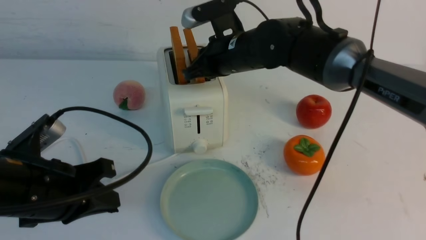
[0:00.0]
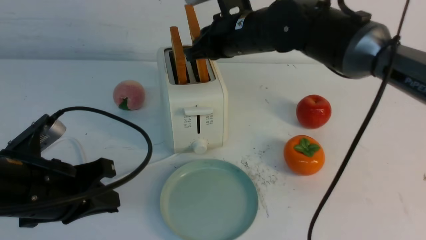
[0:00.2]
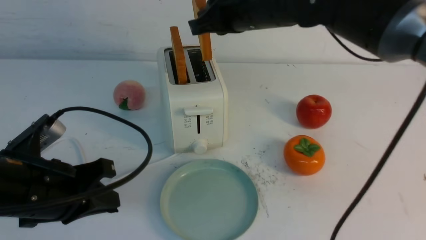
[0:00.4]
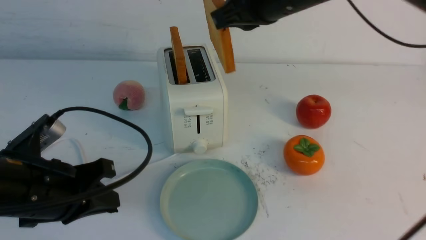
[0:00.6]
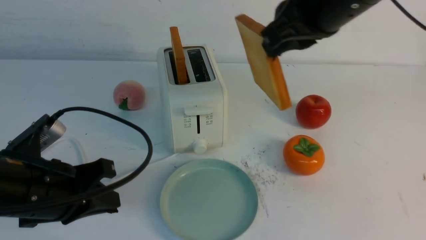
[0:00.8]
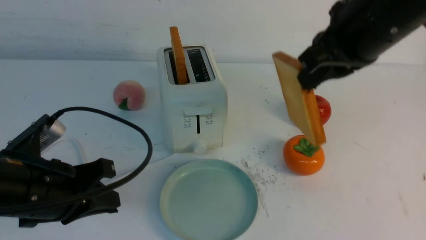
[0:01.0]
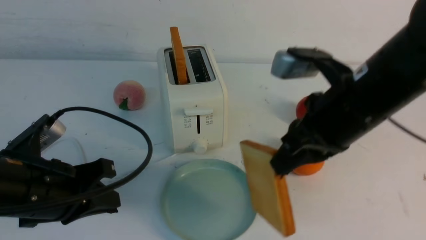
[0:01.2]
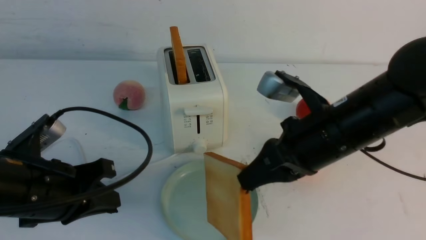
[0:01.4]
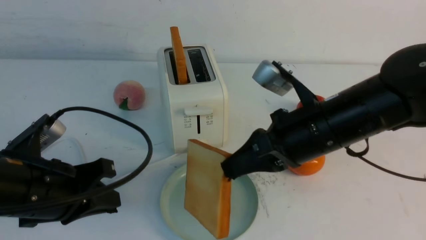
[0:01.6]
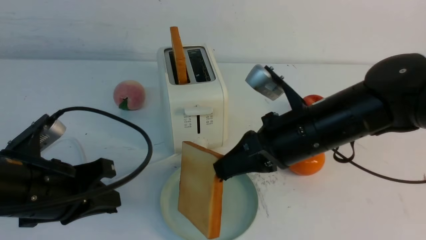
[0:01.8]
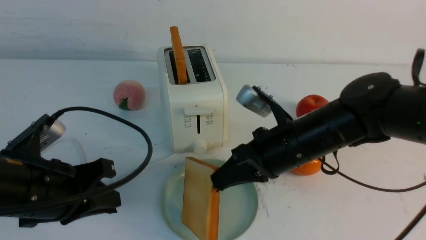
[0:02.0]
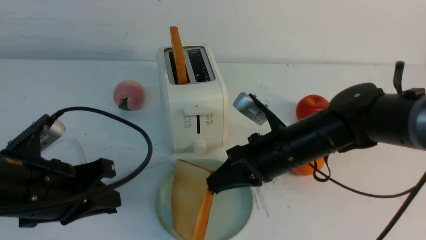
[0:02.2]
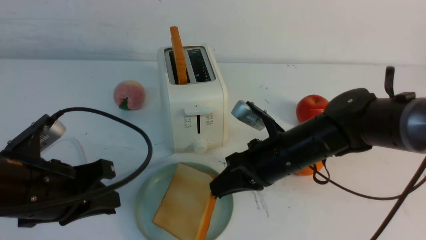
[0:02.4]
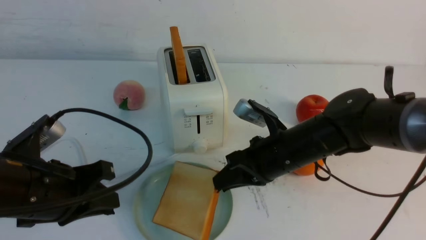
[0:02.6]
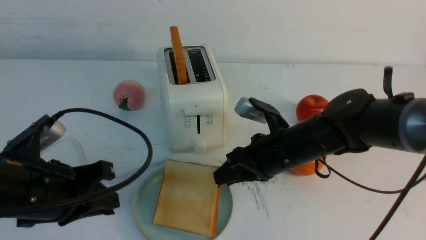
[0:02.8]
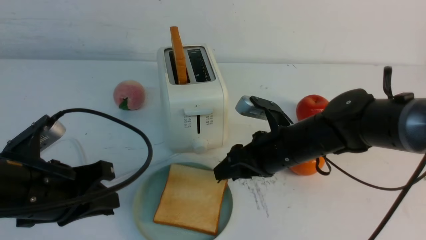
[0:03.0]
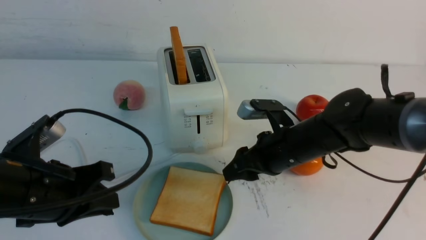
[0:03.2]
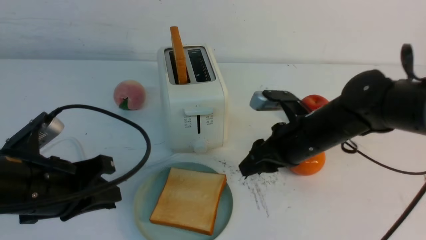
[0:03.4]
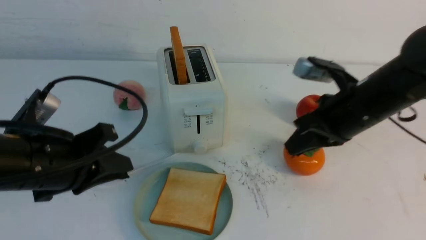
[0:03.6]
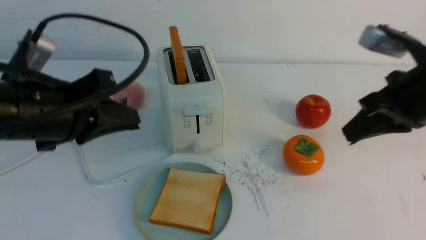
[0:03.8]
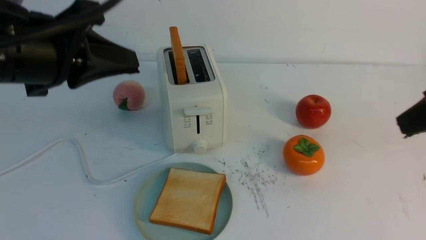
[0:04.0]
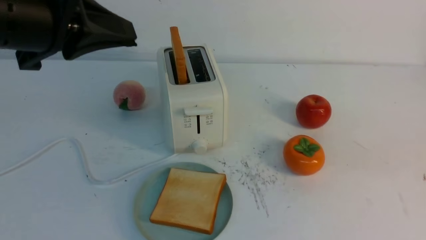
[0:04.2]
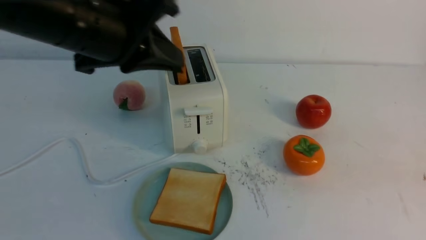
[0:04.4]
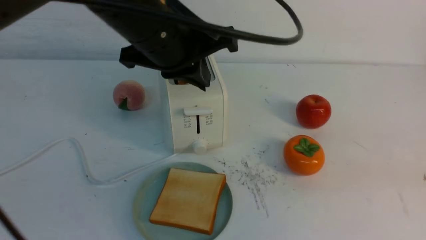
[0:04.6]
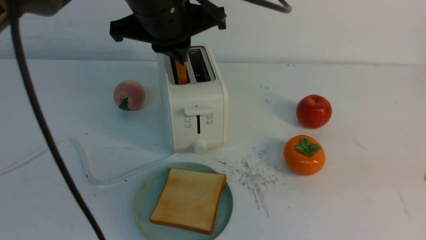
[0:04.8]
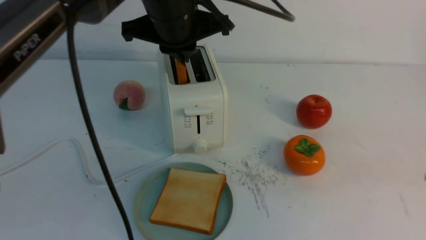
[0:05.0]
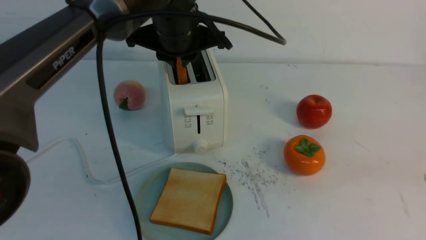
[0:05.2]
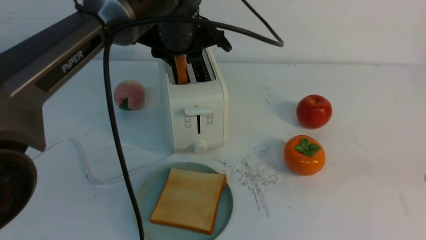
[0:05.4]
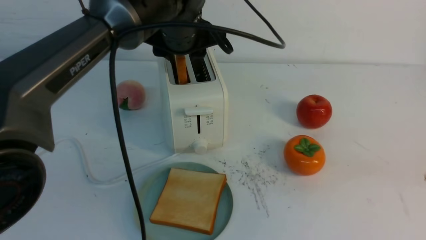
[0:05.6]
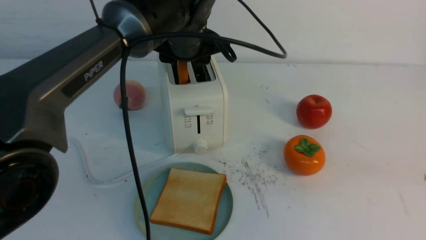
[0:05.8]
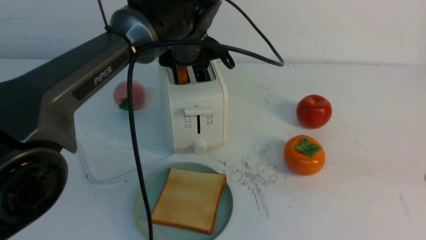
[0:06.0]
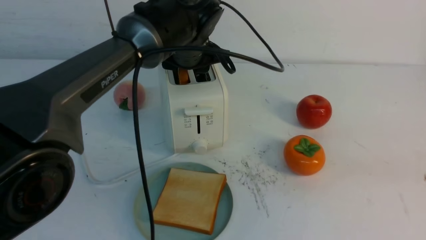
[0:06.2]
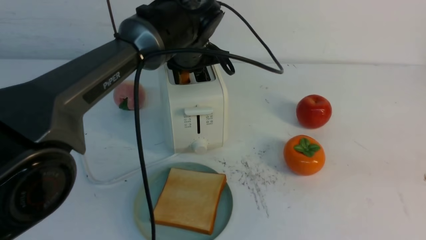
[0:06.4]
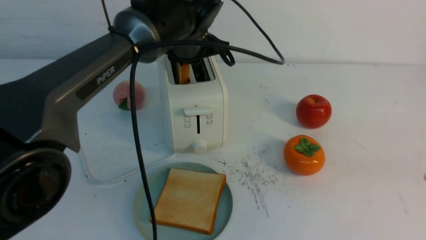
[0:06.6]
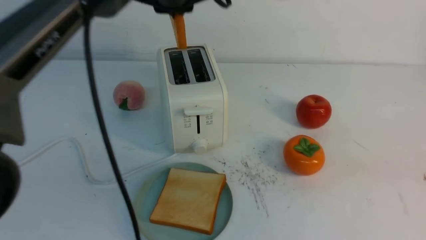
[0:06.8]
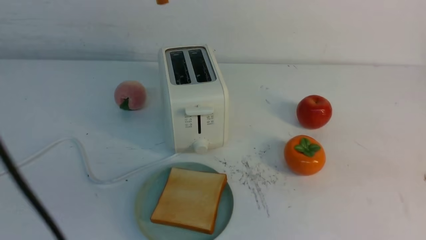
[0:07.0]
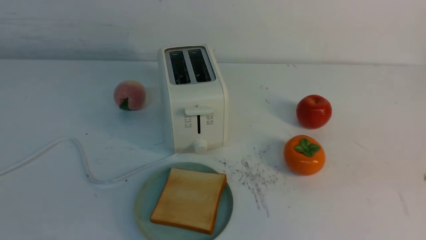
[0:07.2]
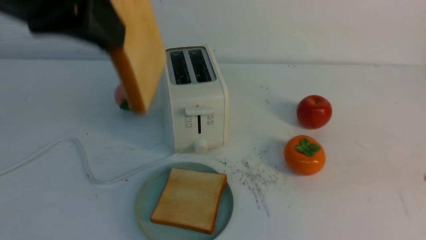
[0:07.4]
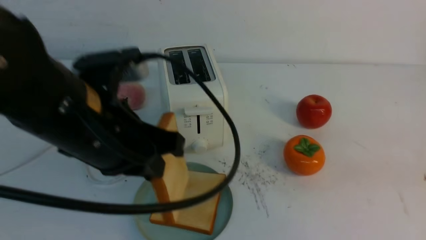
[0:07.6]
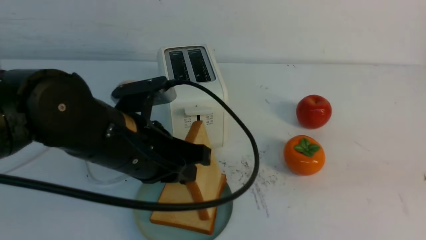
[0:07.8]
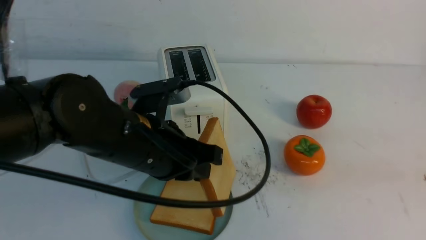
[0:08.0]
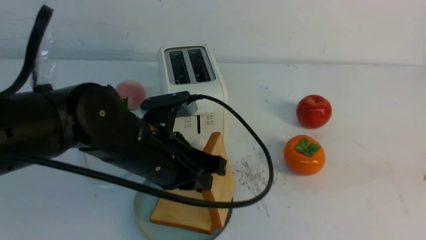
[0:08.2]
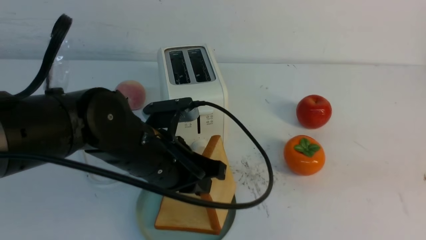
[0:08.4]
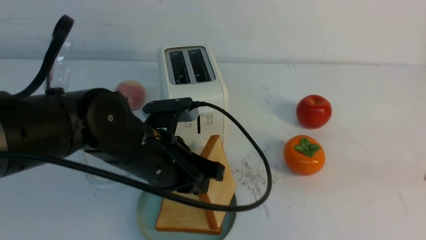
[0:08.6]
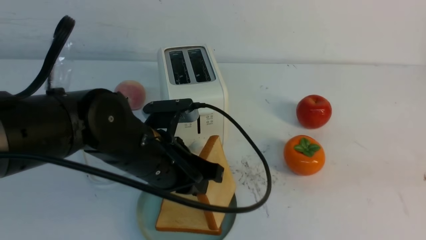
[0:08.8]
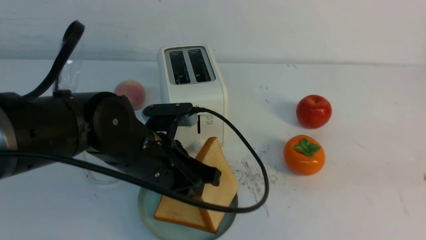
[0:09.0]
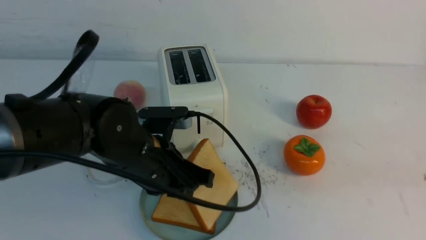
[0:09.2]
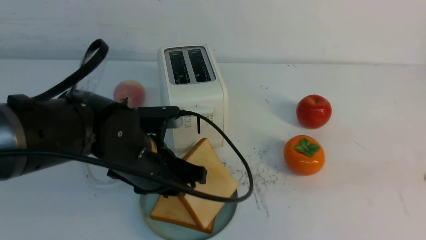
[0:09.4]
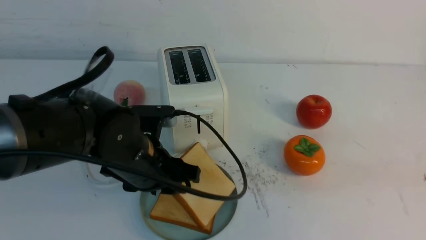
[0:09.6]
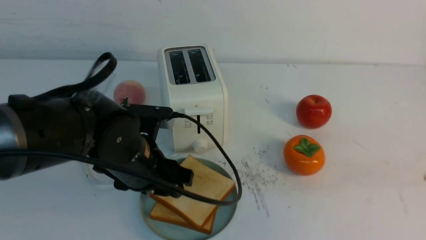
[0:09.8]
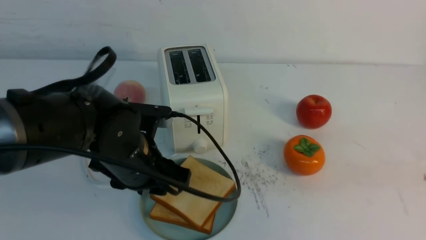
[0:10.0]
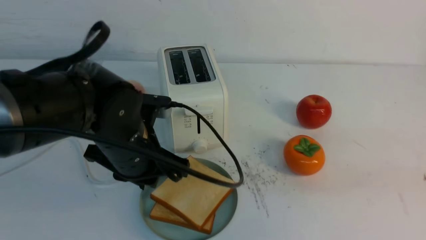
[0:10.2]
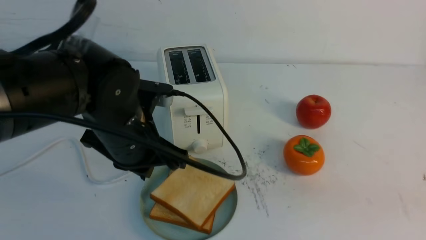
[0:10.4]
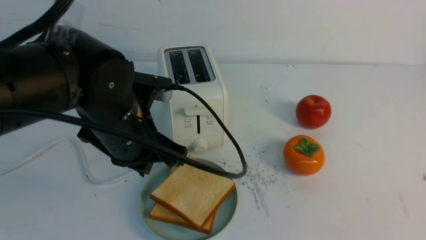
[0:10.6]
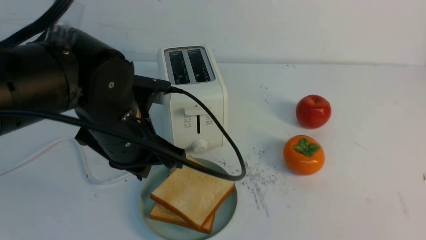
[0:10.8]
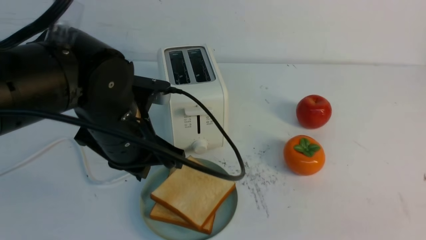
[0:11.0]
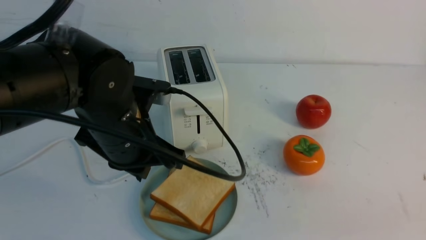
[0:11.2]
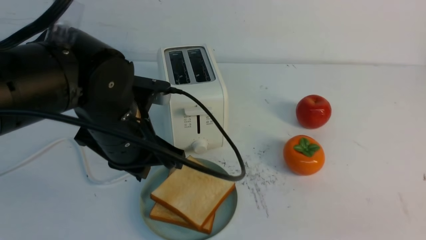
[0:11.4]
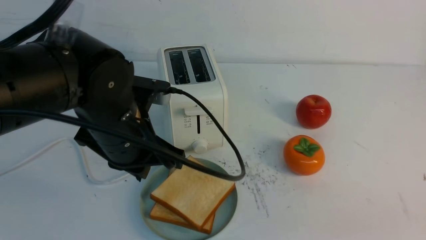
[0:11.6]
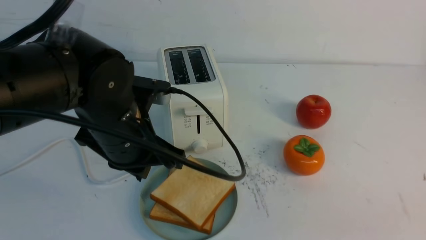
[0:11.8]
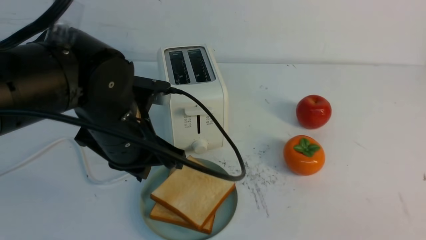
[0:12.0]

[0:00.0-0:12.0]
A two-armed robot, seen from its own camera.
Task of the whole recording: take toasted bread from bread machine on white table place on plate.
Step, 0:00.8 to 0:03.2: use the right arm to put a slice of bread into the plate.
Step, 0:03.4 to 0:06.8: use the left arm to take out a slice of bread.
Step, 0:07.0 to 0:10.4: use the left arm to put a slice of bread into the empty plate.
0:00.0 to 0:01.6: The right gripper goes approximately 15 cm backward and to the right.
0:01.6 to 0:03.0: The right gripper heads downward and forward, covering about 10 cm, and opens.
0:03.0 to 0:04.4: The right gripper heads backward, upward and to the right, covering about 30 cm, and closes up, while the left gripper goes approximately 20 cm upward, to the right and forward.
0:04.4 to 0:06.0: The left gripper shifts about 20 cm forward, downward and to the right, and opens its fingers.
0:06.0 to 0:07.6: The left gripper is displaced backward by approximately 20 cm, and closes up.
0:07.6 to 0:09.0: The left gripper travels downward by about 10 cm.
0:09.0 to 0:10.4: The right gripper is displaced backward by some 10 cm. The left gripper opens, then closes once more.
0:10.4 to 0:12.0: The right gripper goes about 10 cm downward.

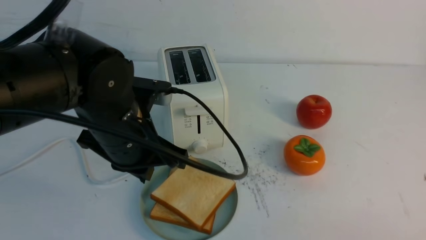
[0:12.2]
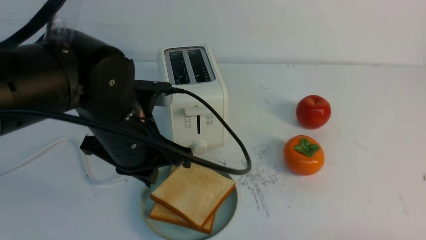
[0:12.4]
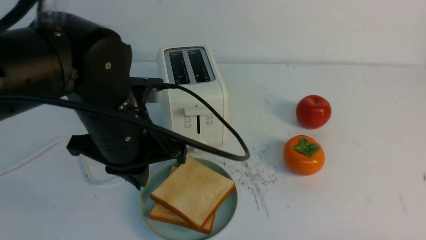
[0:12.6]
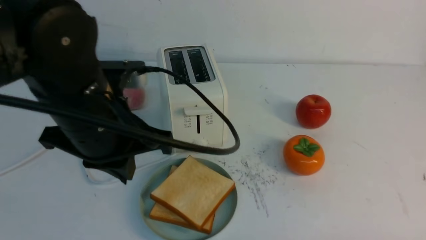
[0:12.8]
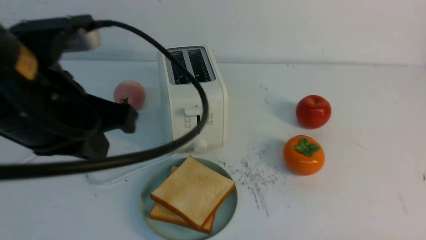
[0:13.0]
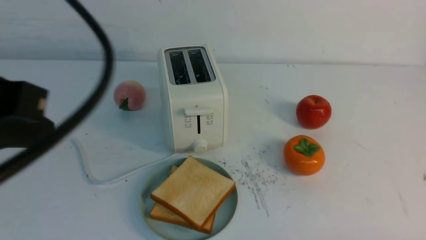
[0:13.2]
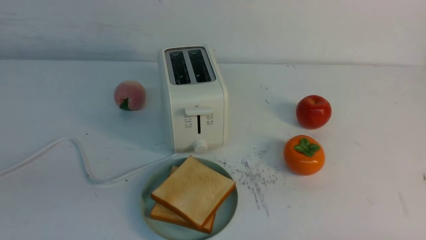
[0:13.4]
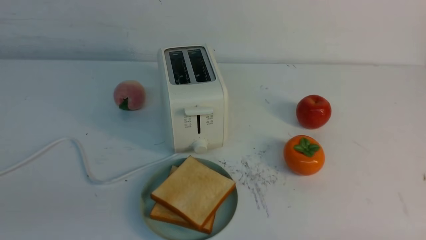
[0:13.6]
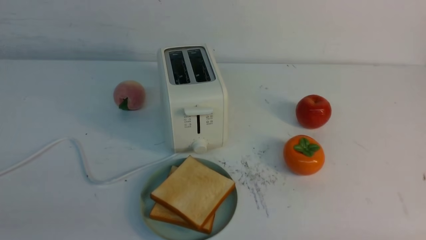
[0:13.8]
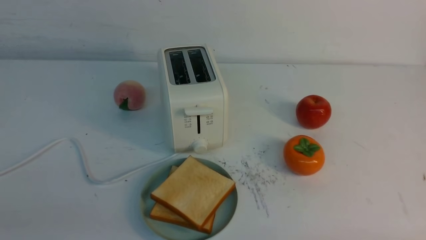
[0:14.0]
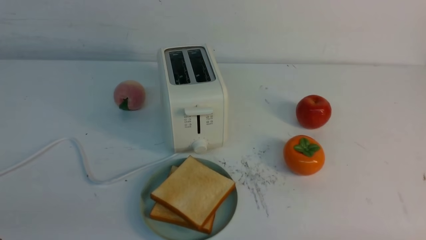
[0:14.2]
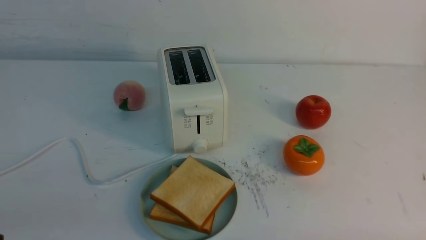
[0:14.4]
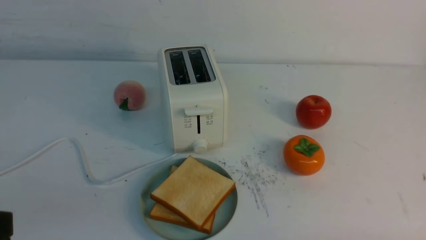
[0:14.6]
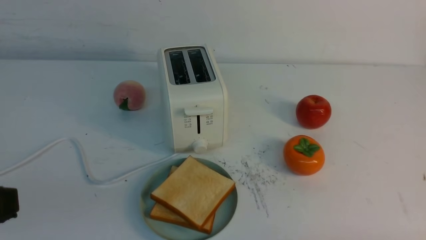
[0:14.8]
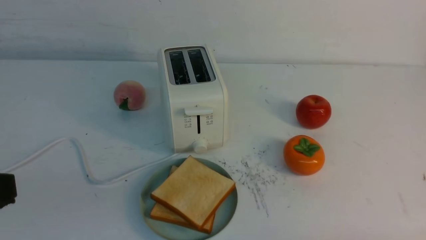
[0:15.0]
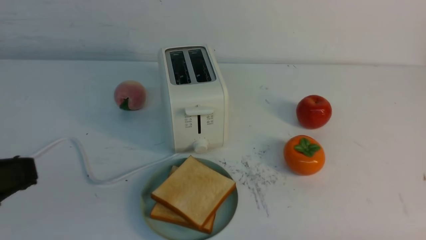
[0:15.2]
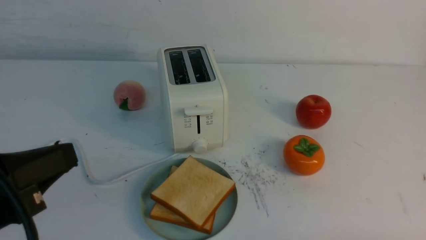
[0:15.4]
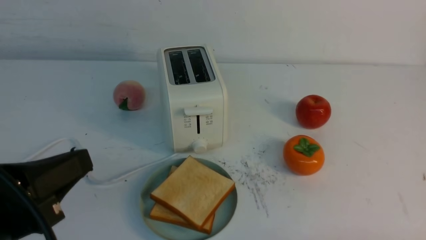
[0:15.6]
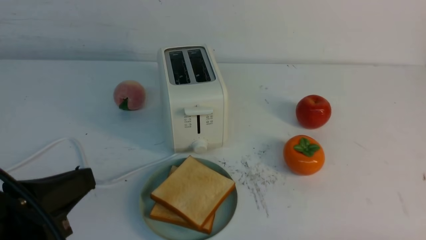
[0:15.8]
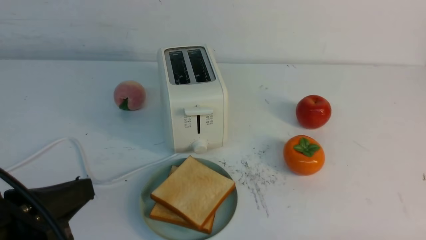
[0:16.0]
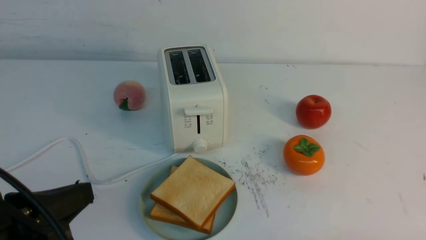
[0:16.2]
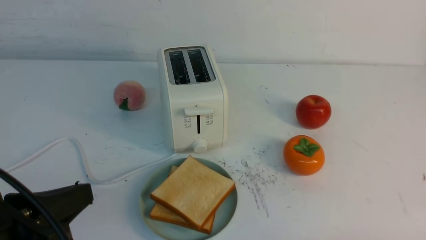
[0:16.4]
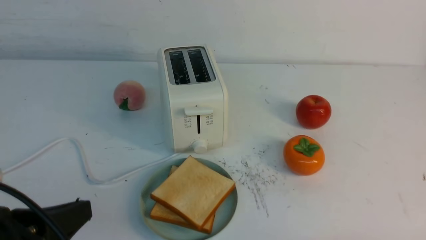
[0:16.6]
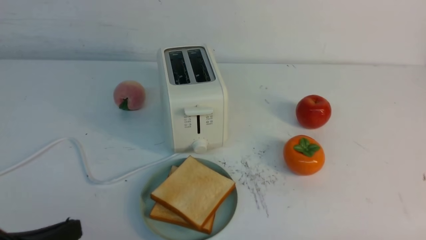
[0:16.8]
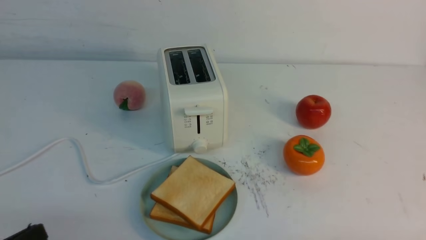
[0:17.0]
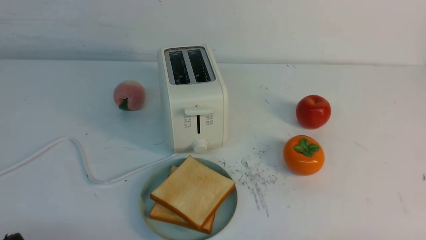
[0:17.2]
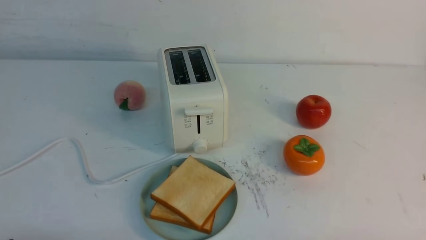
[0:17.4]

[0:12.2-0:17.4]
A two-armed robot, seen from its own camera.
Task of the whole recording: take toasted bread from bread machine on white table place on plate.
0:12.2 to 0:14.0: The left gripper heads backward and to the left, covering about 25 cm. The right gripper moves downward, about 5 cm.
0:14.0 to 0:15.6: The left gripper shifts by some 5 cm.
0:15.6 to 0:17.4: The left gripper heads downward and to the left, covering approximately 15 cm.
